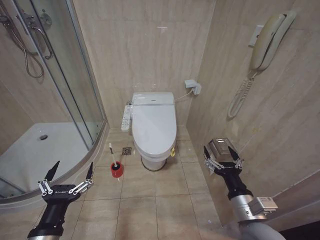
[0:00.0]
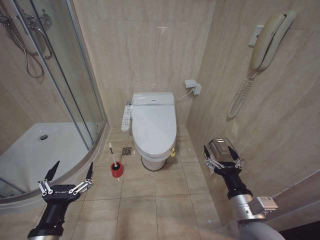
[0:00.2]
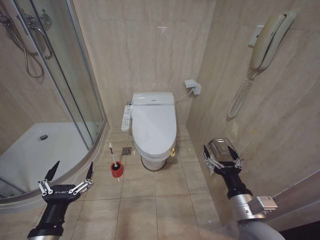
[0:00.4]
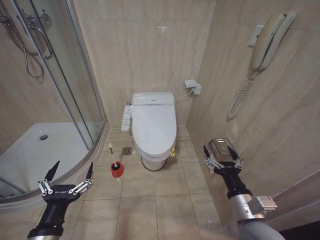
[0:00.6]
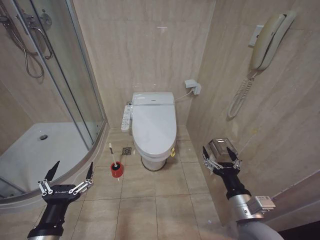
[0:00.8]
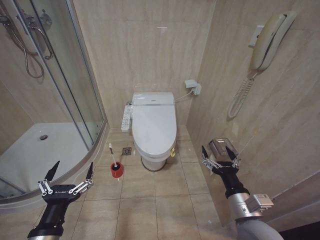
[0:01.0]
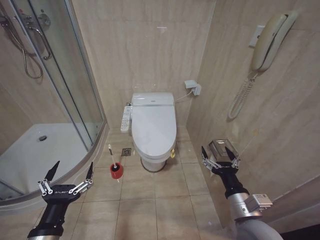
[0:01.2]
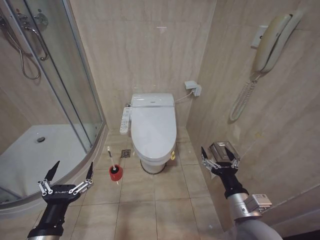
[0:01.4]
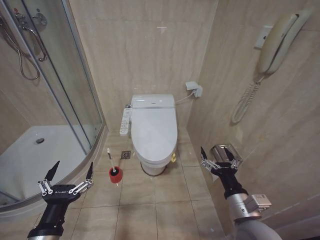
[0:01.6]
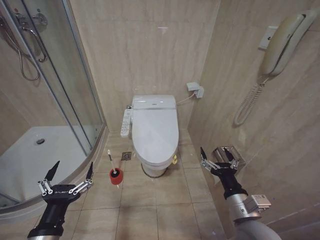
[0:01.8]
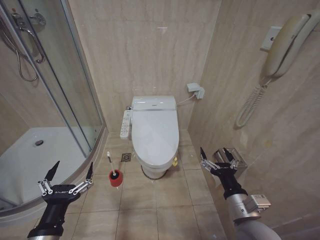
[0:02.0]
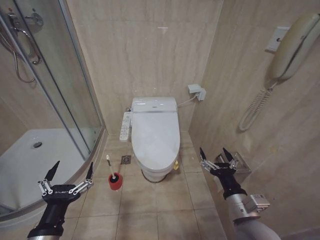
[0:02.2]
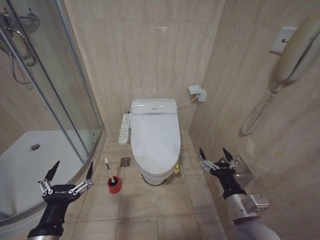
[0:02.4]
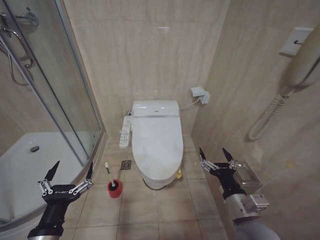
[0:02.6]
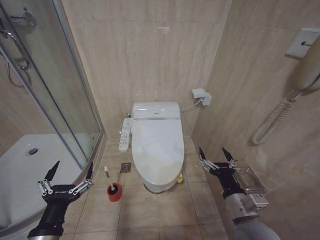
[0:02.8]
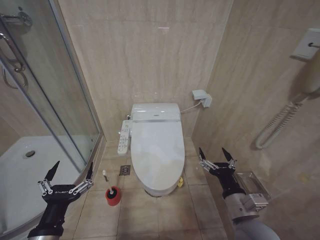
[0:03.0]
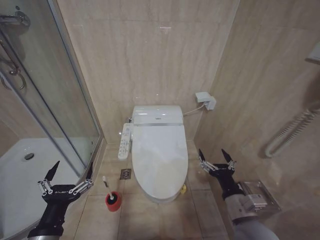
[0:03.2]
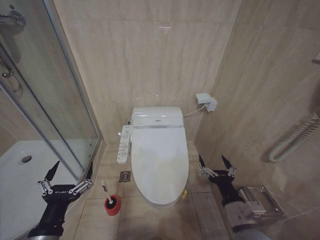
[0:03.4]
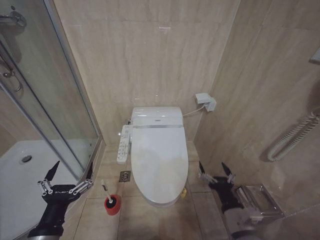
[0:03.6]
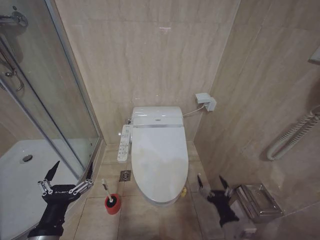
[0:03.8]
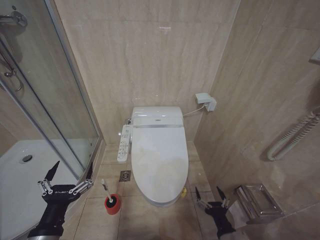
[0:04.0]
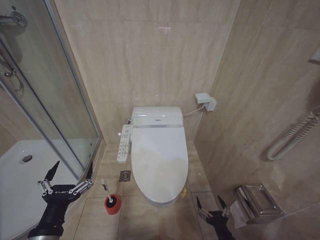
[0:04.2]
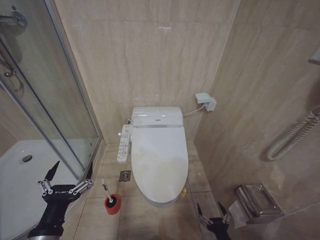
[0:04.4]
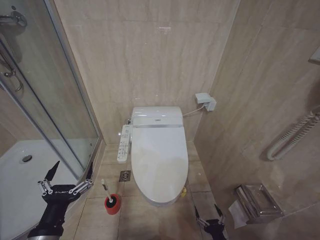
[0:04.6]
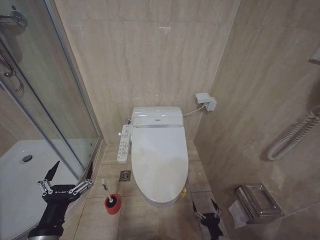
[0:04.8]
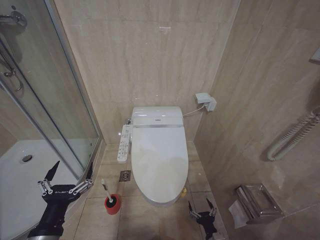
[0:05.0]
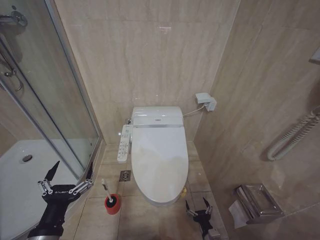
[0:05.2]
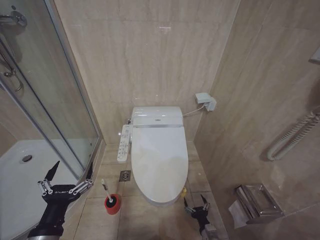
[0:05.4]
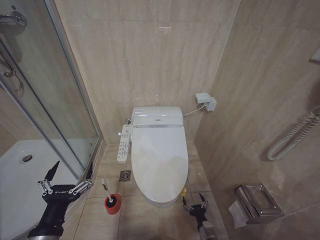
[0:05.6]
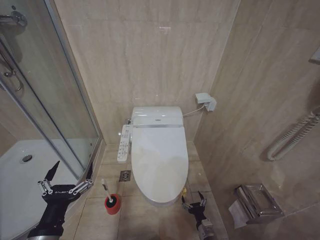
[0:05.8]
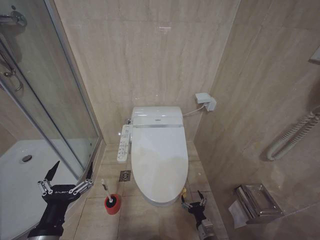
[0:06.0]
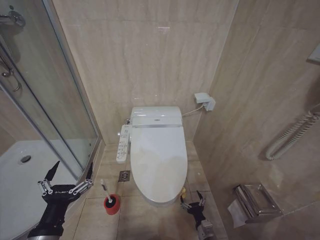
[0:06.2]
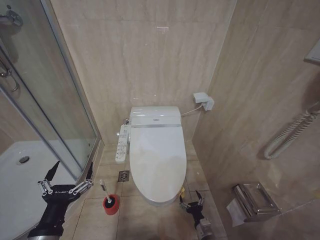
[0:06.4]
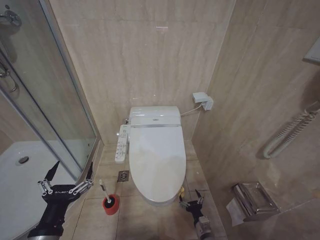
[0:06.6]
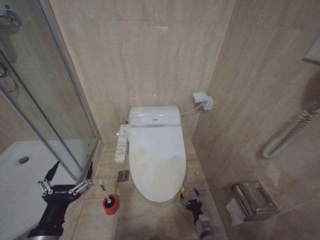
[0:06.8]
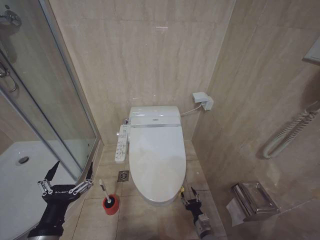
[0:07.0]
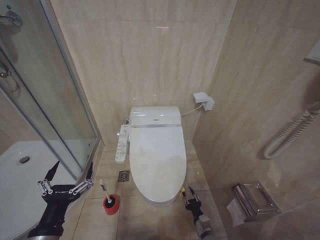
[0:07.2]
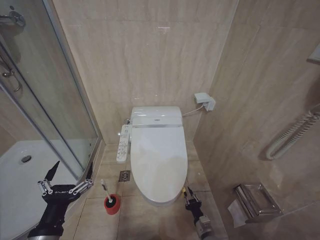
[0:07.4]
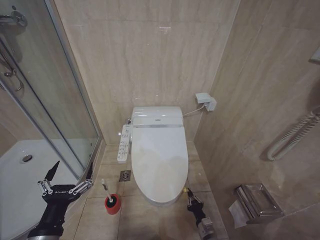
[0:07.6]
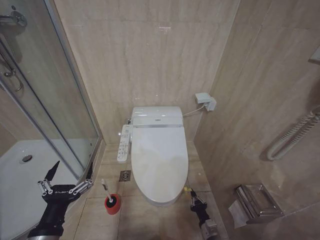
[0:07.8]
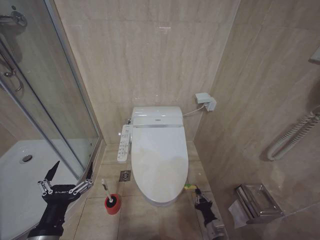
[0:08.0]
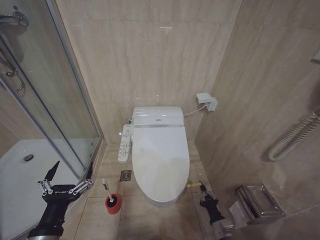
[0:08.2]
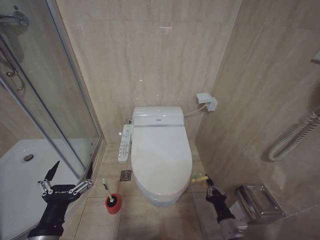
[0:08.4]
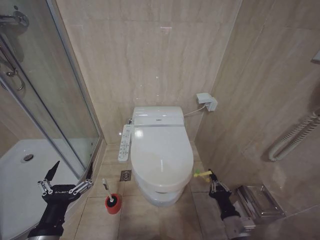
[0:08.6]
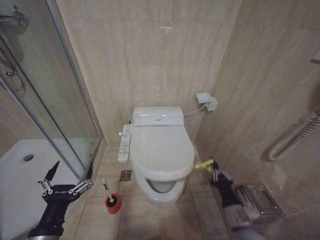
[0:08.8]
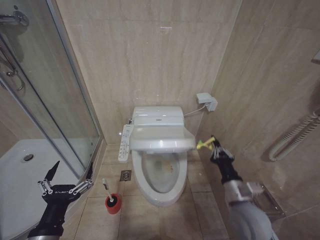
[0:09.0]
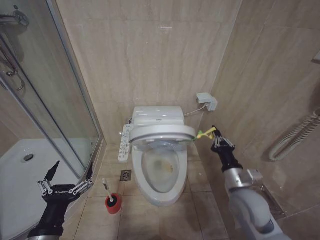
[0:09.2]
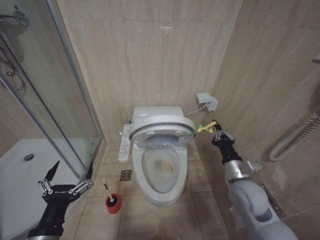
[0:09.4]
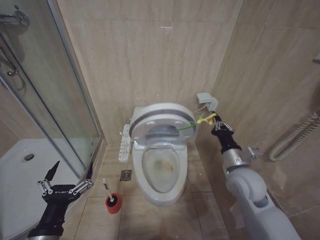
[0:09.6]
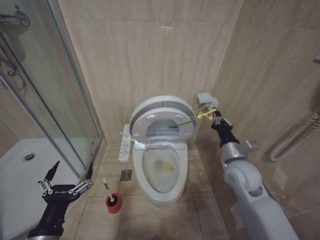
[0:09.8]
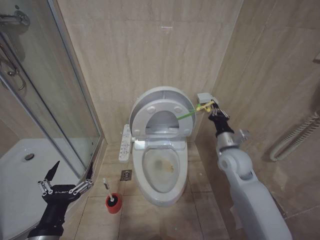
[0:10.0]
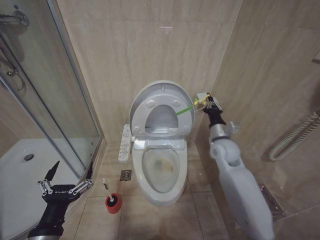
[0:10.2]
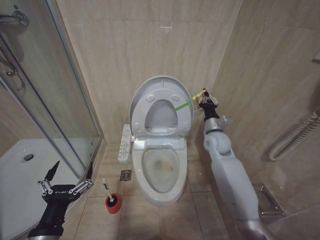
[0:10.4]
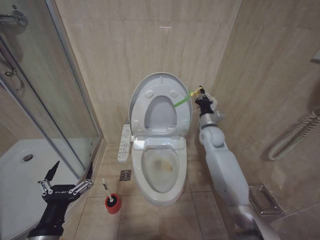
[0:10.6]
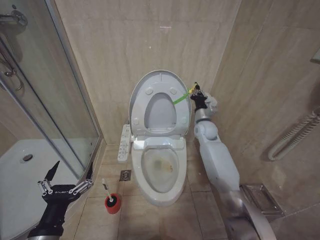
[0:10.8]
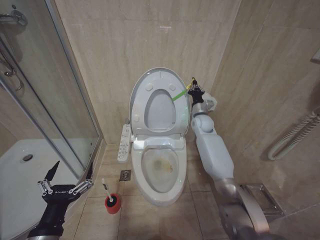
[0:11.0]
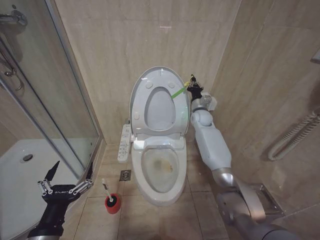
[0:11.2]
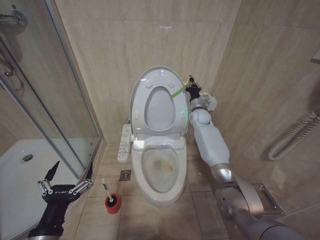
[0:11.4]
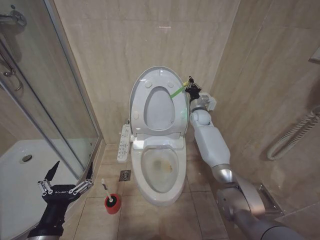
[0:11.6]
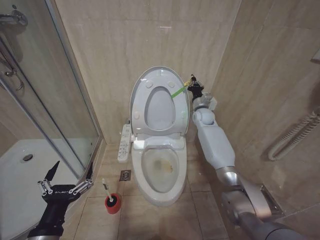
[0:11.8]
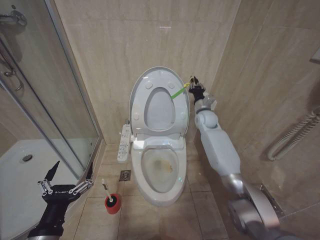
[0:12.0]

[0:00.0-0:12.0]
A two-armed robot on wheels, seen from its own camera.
Task of the whole recording: Open the toilet lid, clean the toilet bowl with a toilet brush, close the toilet lid, and flush.
0:01.6 to 0:03.0: Both grippers stay about where they are.
0:03.0 to 0:04.4: The right gripper is displaced downward by approximately 20 cm.
0:04.4 to 0:06.0: The right gripper moves downward and forward, about 15 cm.
0:07.6 to 0:09.0: The right gripper is displaced upward by roughly 25 cm.
0:09.0 to 0:10.4: The right gripper moves forward and upward, about 25 cm.
0:10.4 to 0:12.0: The right gripper is displaced forward by approximately 15 cm.

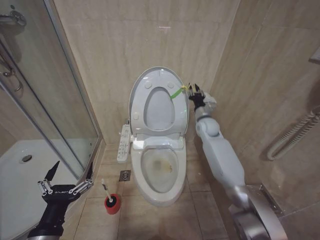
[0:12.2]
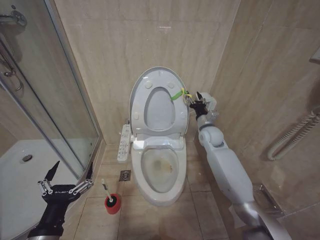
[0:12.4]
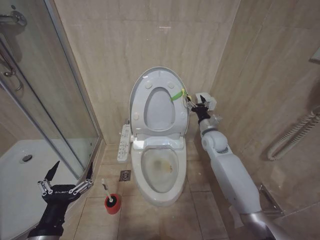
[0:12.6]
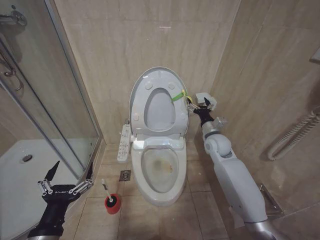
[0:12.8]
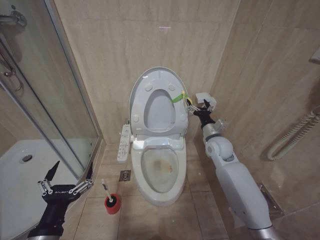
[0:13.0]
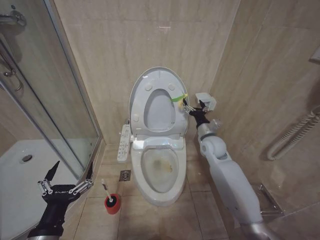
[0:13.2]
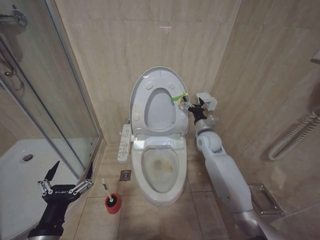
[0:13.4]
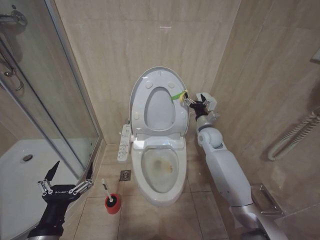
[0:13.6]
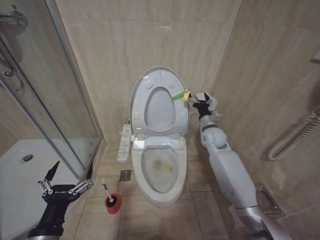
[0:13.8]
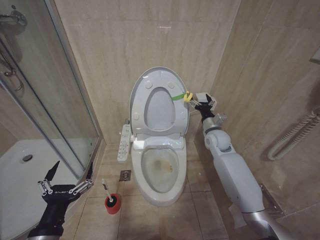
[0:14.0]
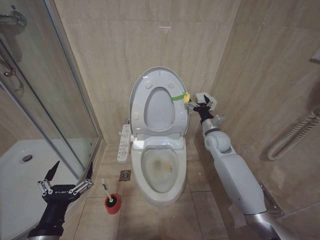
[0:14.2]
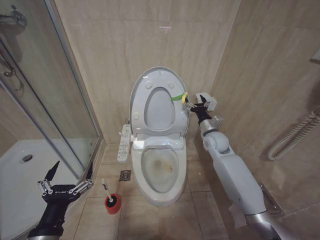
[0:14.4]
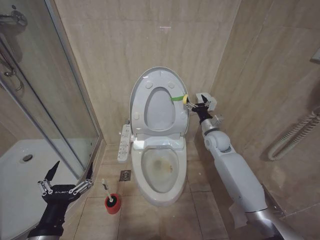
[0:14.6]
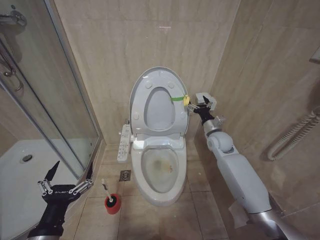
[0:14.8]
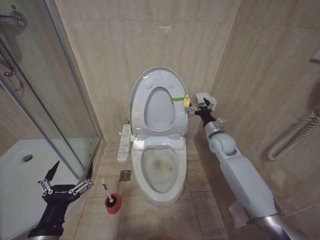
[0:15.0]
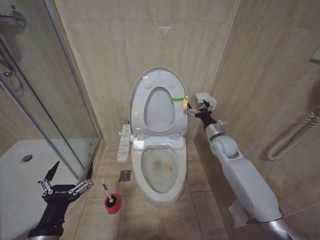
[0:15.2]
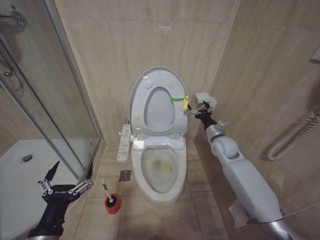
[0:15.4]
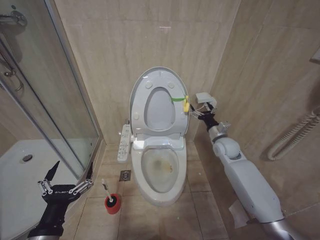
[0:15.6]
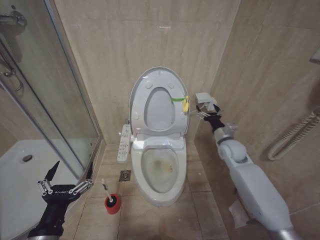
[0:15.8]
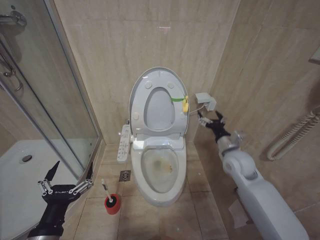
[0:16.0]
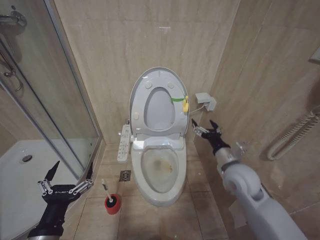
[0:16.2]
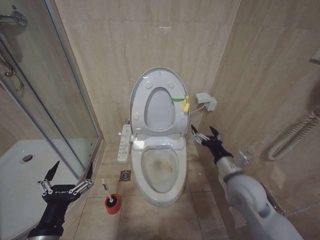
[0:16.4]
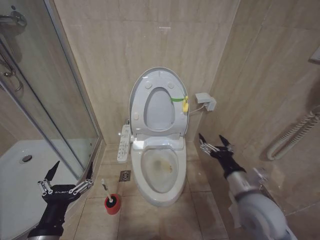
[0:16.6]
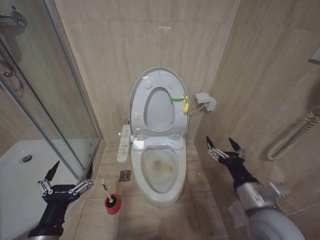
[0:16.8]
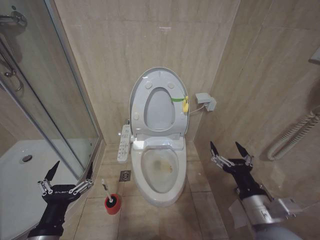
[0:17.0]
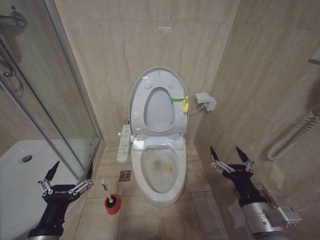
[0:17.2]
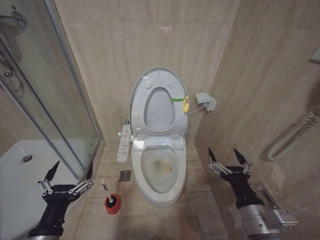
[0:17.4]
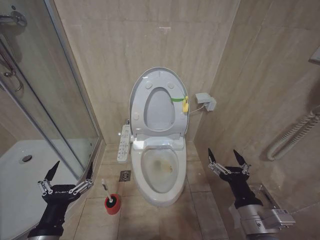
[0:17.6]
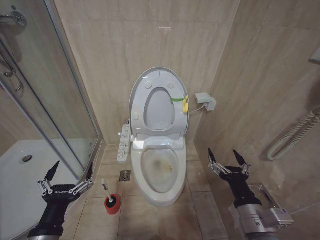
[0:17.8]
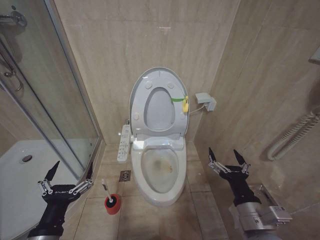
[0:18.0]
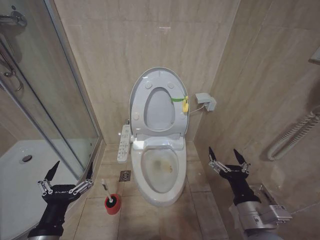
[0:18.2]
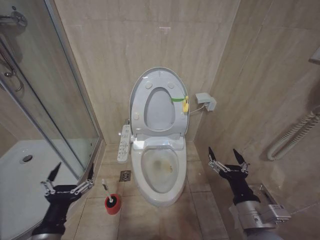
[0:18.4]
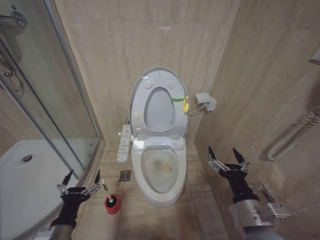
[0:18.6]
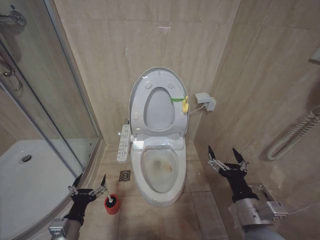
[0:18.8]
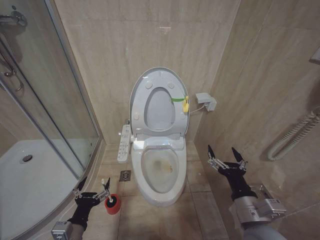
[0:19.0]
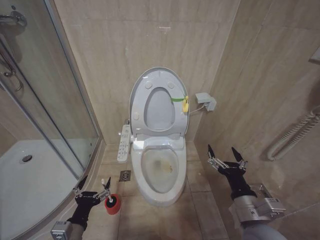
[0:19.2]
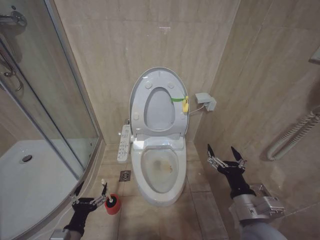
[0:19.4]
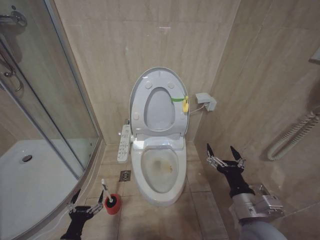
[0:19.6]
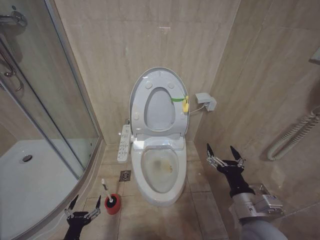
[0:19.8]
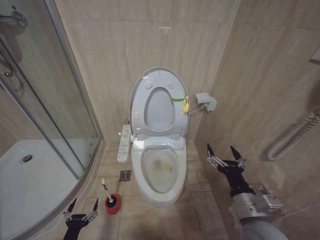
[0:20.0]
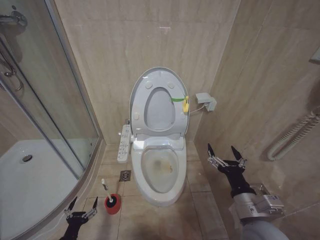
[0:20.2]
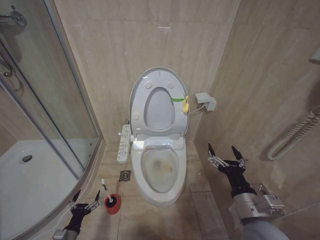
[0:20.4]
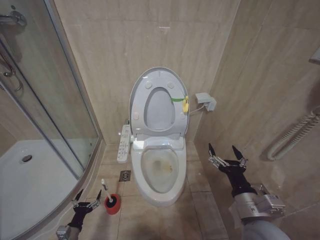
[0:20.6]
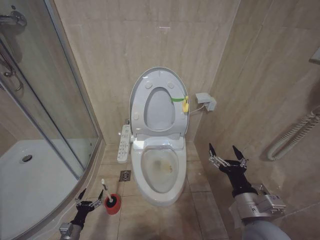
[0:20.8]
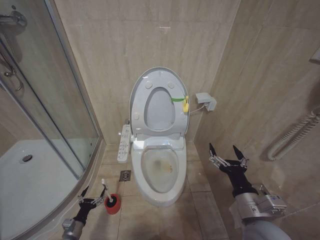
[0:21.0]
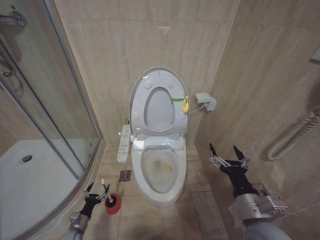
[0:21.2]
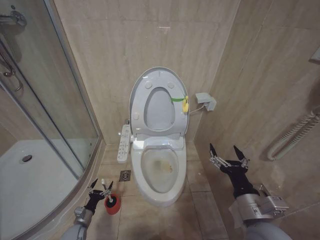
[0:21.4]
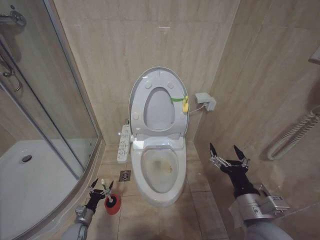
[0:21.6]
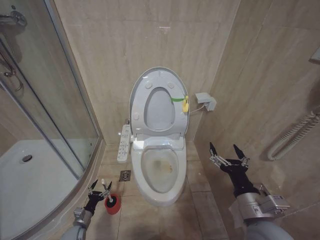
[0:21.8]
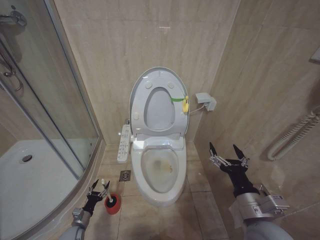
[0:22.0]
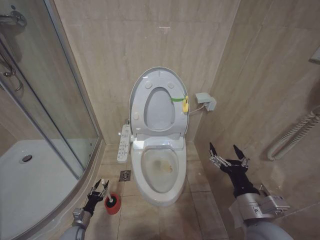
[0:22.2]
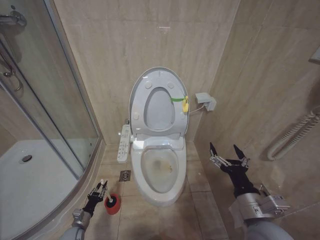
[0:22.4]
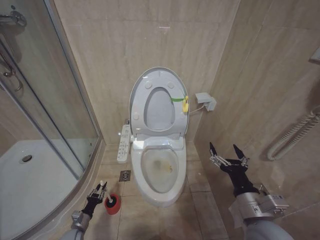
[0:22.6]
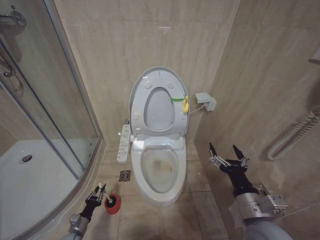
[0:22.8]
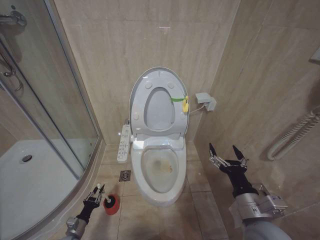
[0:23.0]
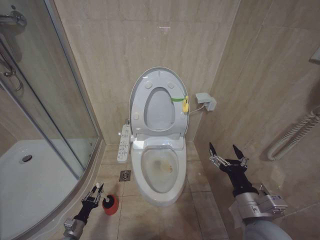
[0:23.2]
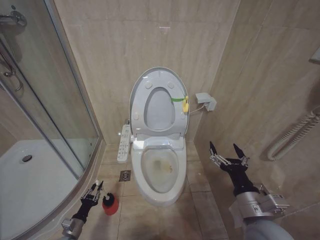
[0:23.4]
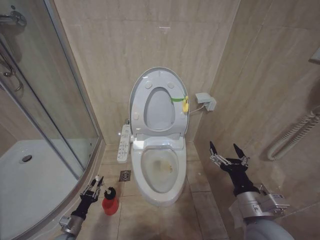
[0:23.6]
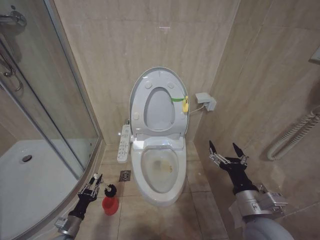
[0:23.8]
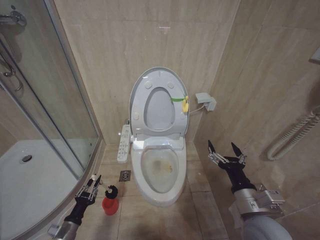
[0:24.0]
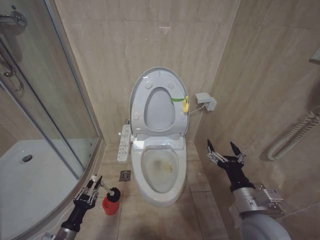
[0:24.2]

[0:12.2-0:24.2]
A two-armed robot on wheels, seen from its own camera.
Task of the whole recording: Open the toilet lid, clean the toilet bowl with a toilet brush, close the toilet lid, and flush.
0:12.2 to 0:13.8: The right gripper heads backward, covering approximately 5 cm, and opens its fingers.
0:13.8 to 0:15.2: The right gripper ends up some 5 cm from where it was.
0:15.2 to 0:16.6: The right gripper shifts some 25 cm backward.
0:16.6 to 0:18.2: The right gripper goes approximately 10 cm backward.
0:18.2 to 0:19.8: The left gripper is displaced downward by roughly 20 cm.
0:19.8 to 0:21.2: The left gripper moves downward, forward and to the left, approximately 20 cm.
0:22.6 to 0:24.2: The left gripper travels upward and backward by about 15 cm.
